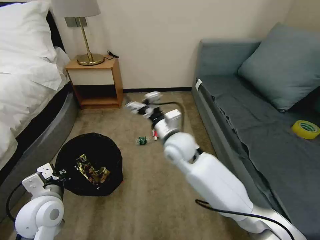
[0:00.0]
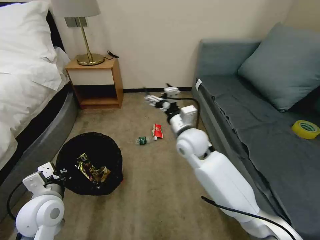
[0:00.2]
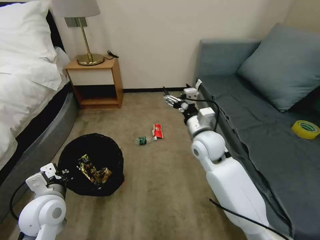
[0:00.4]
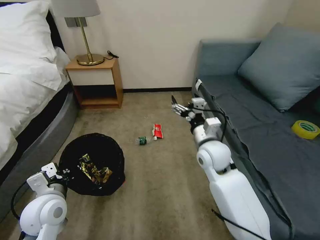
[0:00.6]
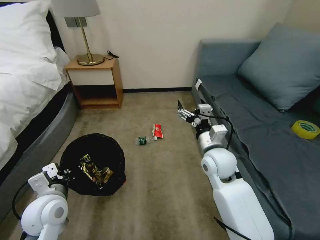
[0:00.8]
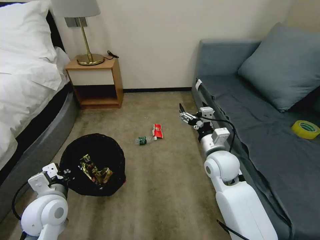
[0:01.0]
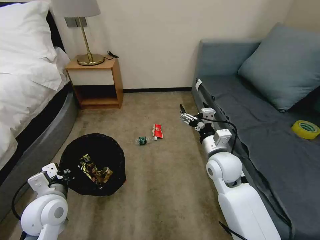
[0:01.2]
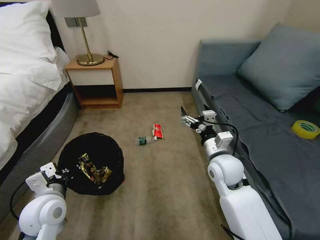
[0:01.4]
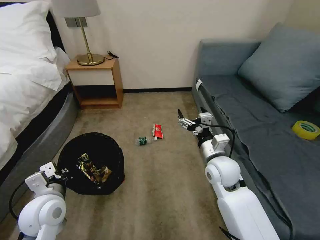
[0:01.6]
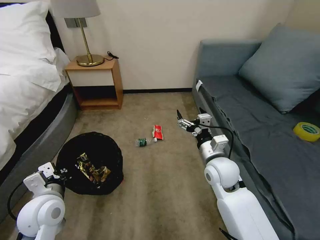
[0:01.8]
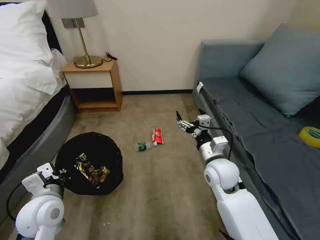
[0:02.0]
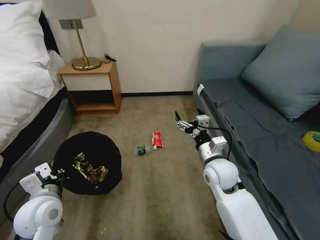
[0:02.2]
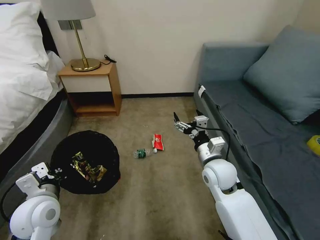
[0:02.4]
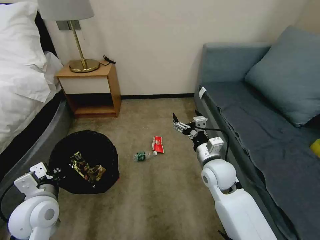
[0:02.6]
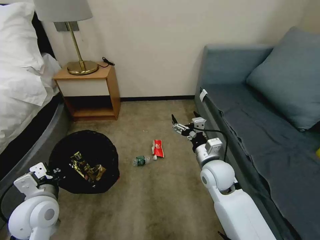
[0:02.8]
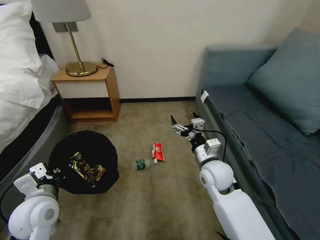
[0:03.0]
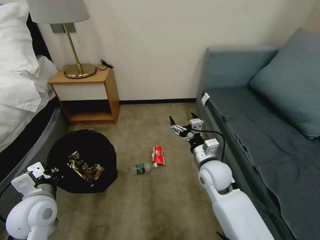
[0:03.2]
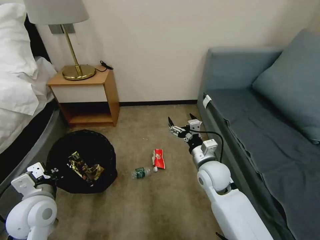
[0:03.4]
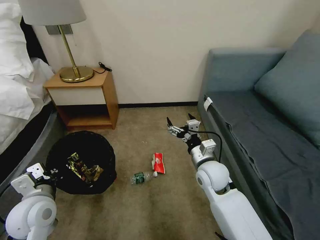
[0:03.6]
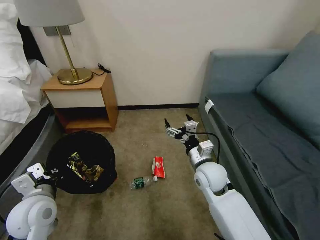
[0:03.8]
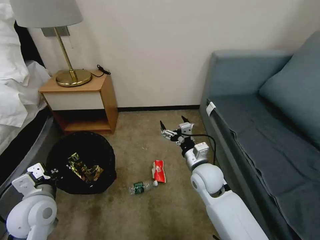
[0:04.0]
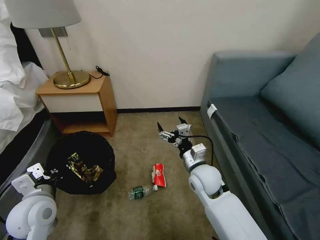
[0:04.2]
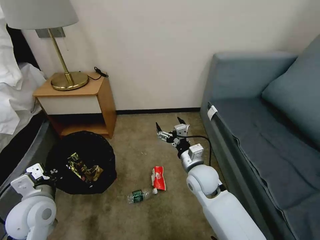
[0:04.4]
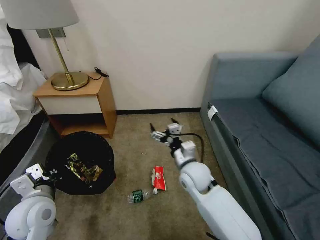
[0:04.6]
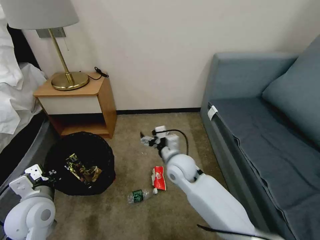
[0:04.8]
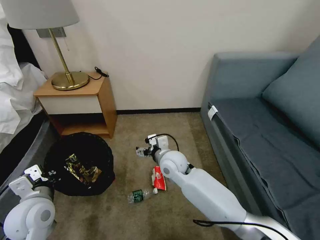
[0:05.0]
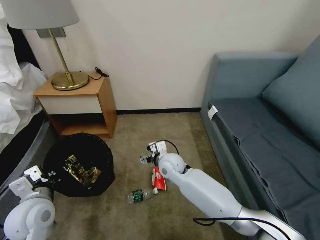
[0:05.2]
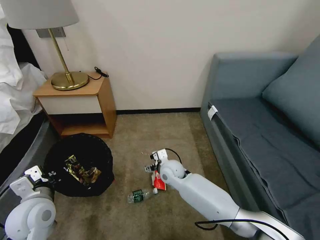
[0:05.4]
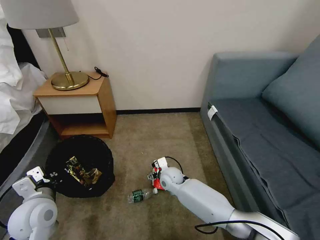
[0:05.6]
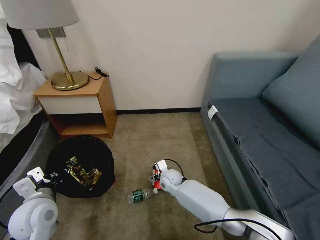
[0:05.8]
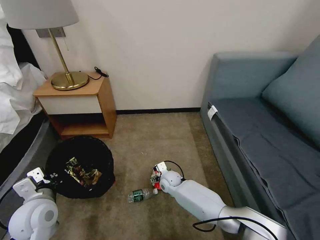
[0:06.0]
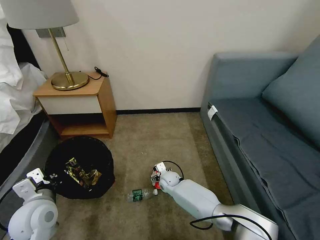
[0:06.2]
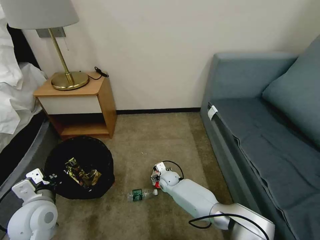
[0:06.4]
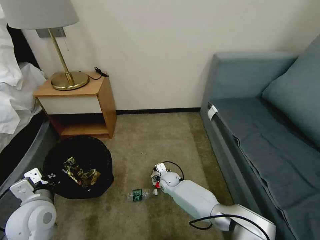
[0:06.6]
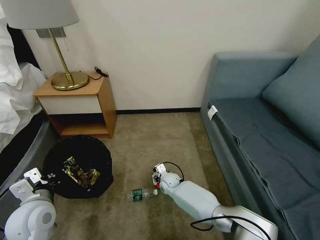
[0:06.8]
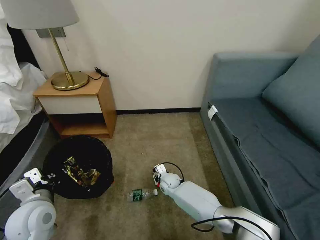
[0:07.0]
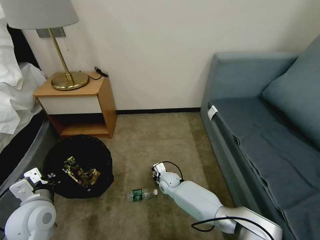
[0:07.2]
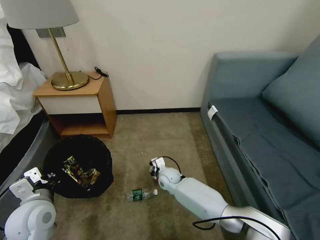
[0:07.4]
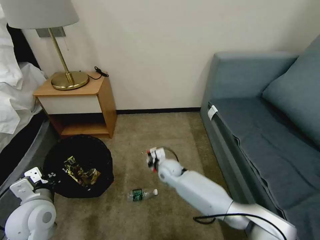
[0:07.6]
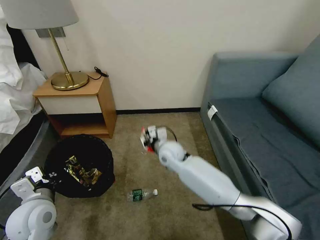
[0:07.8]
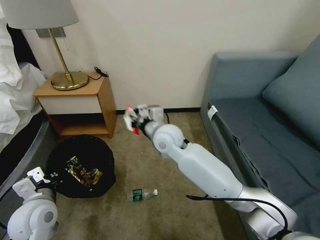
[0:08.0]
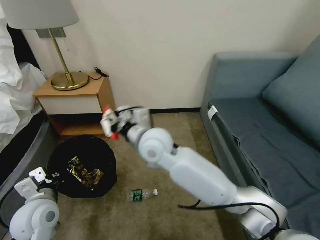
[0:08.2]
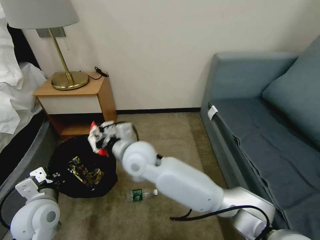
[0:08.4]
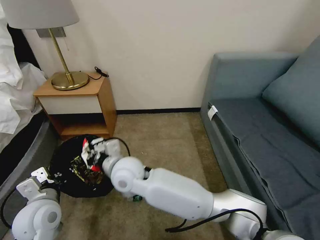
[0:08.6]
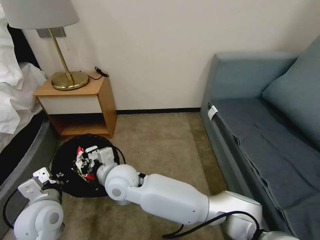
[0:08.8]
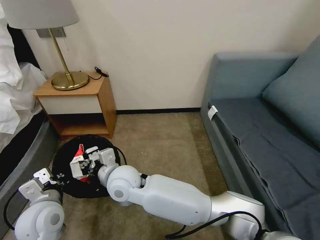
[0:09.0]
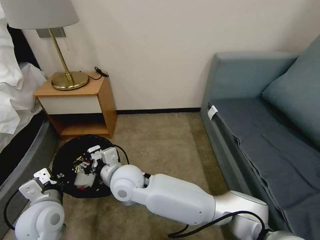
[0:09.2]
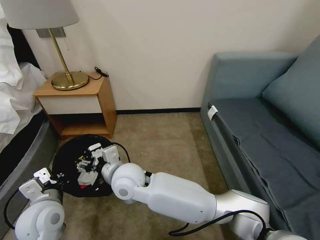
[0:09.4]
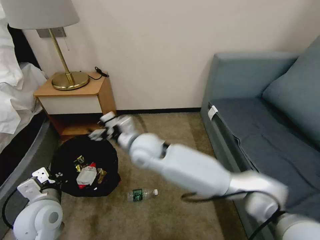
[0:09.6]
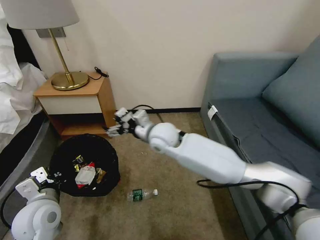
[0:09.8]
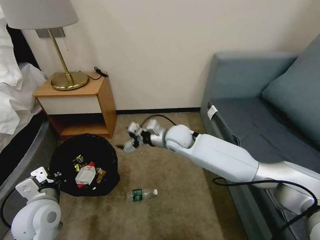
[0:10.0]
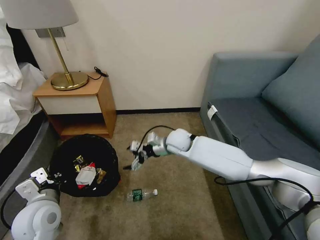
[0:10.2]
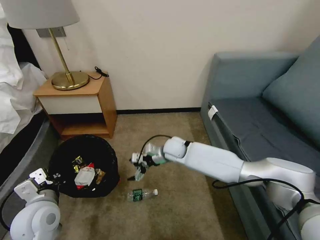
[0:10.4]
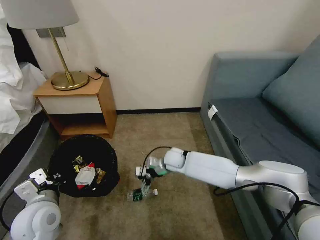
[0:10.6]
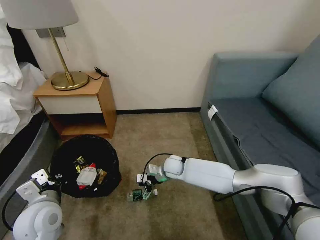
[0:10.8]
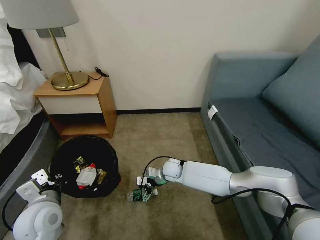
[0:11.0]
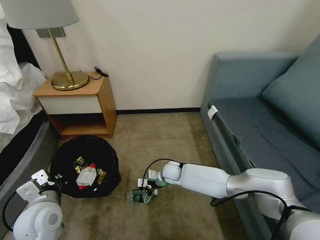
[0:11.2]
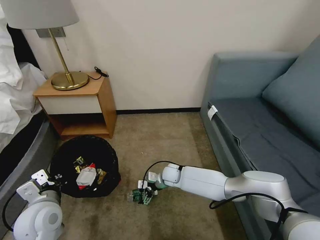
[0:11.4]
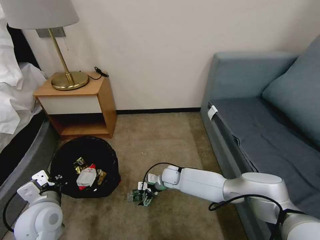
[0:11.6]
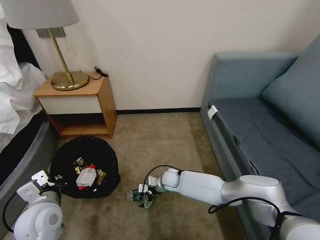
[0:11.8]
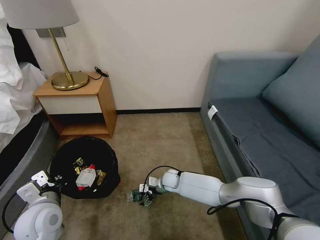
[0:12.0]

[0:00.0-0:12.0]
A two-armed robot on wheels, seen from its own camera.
Task of the whole recording: Pick up the trash bin, then pick up the garbage on the floor and place it into the trash bin.
0.0 to 1.6 s: The right gripper heads to the right, downward and backward, covering some 15 cm.
4.4 to 6.0 s: The right gripper heads downward, to the left and forward, covering about 20 cm.
6.0 to 7.6 s: The right gripper shifts some 10 cm upward, and closes up.
7.6 to 9.0 s: The right gripper goes some 25 cm upward, to the left and backward.
9.0 to 10.4 s: The right gripper travels forward, to the right and downward by approximately 25 cm, and opens.
10.4 to 12.0 s: The right gripper is displaced downward by approximately 15 cm.

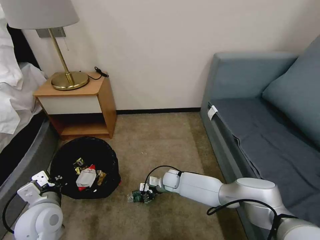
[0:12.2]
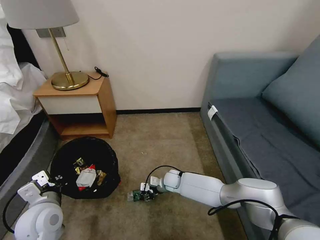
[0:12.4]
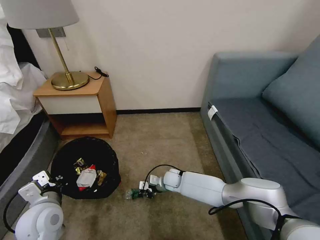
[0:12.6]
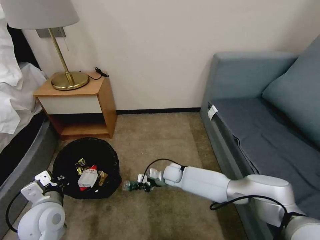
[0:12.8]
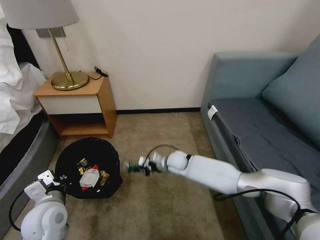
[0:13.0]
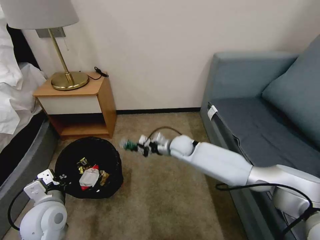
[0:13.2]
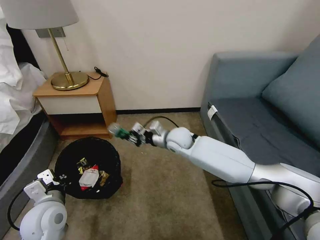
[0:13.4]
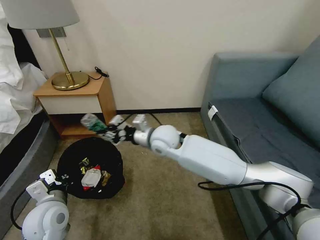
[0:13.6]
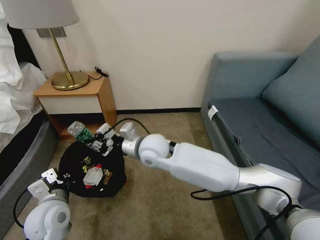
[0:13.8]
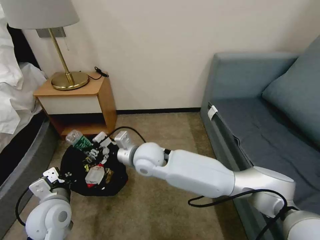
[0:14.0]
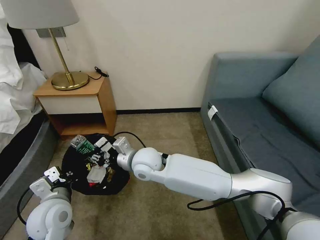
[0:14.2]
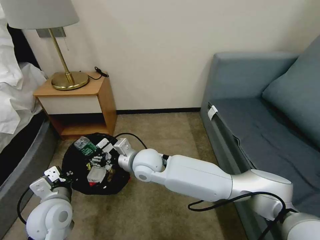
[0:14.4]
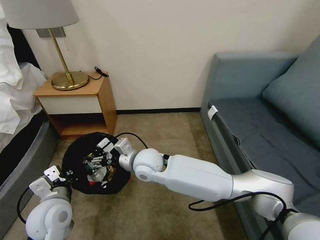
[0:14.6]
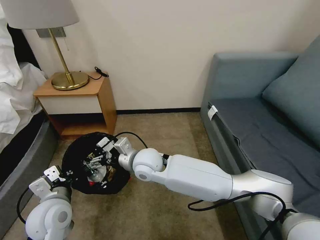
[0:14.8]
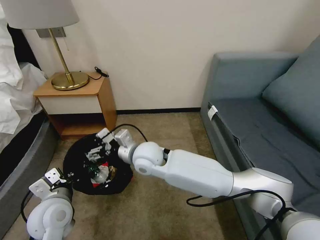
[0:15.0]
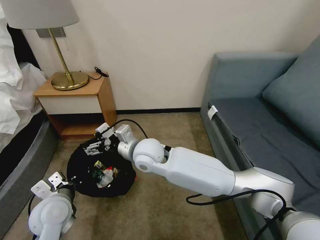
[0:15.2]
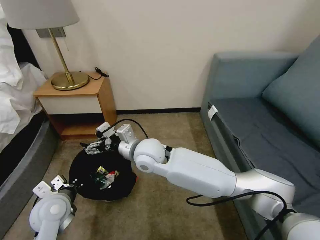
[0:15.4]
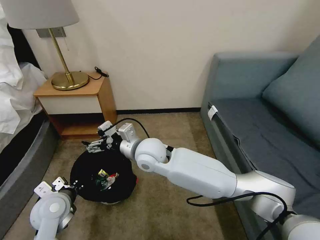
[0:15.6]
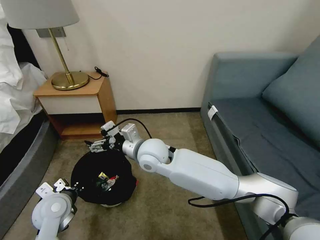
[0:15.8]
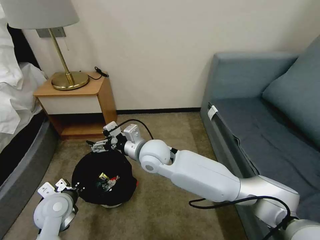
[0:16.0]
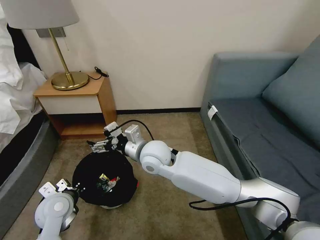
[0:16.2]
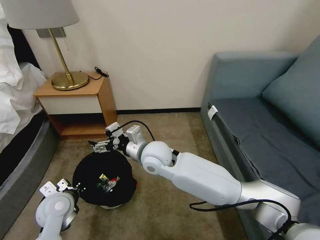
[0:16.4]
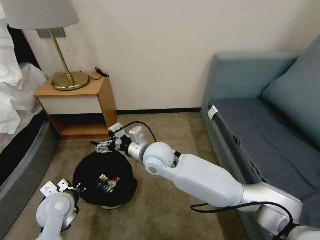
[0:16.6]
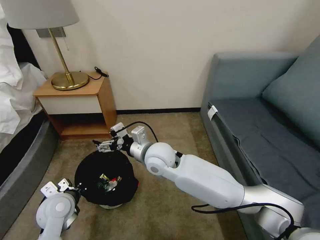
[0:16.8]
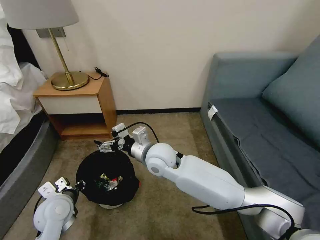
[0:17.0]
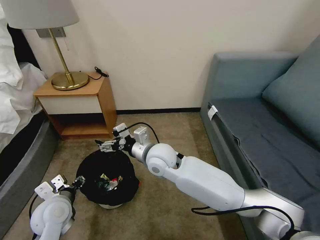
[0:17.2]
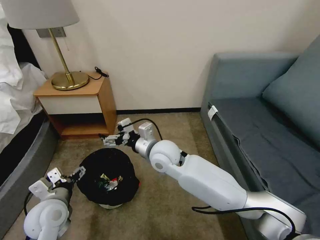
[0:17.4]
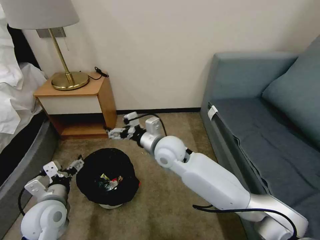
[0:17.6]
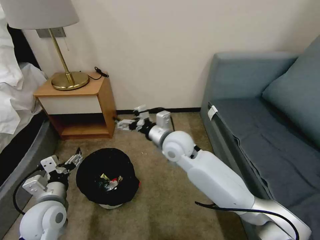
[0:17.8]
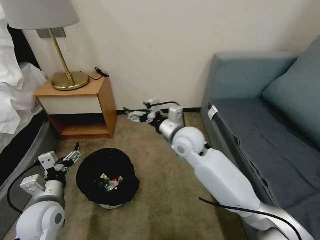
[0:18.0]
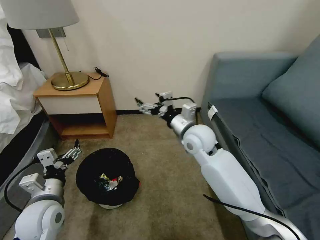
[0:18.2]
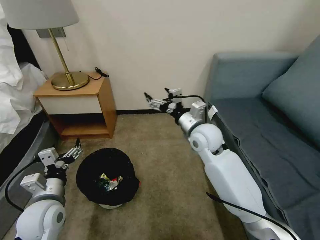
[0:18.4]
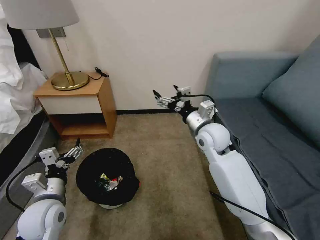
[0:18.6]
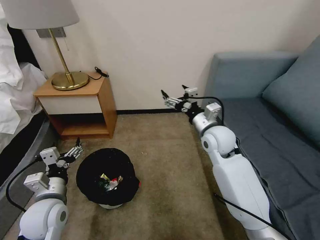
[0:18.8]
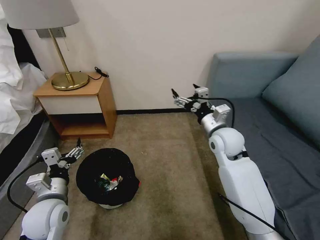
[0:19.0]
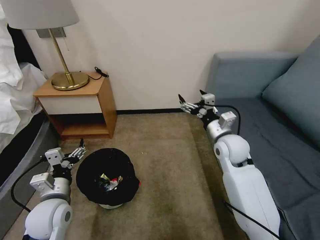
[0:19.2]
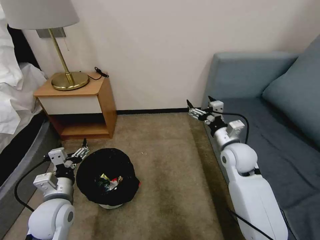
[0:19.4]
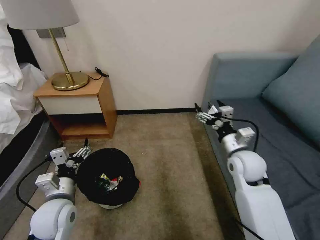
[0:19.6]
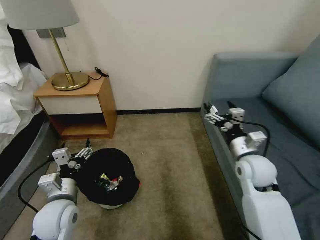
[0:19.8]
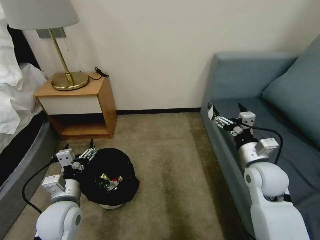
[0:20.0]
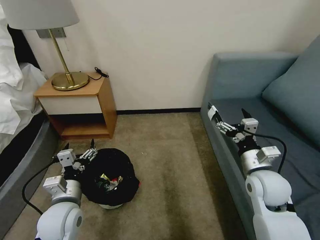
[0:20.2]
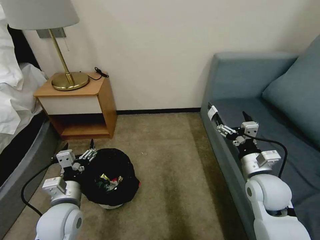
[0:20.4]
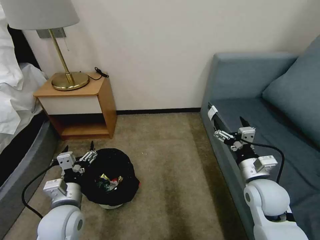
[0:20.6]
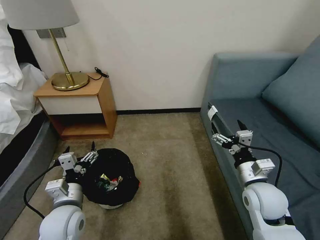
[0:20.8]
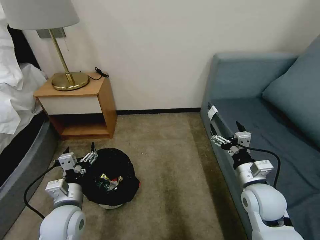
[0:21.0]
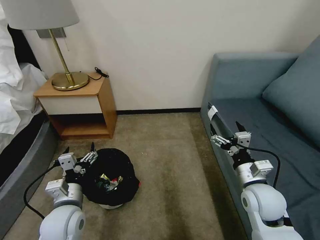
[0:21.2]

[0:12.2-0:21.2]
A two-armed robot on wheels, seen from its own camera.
Task of the whole recording: Pick up the trash bin, then pick up the garbage on the floor and place it into the trash bin.
12.2 to 13.8 s: The right gripper shifts roughly 30 cm upward, and closes its fingers.
13.8 to 15.2 s: The right gripper opens.
15.2 to 16.6 s: The grippers make only small movements.
16.6 to 18.2 s: The right gripper is displaced to the right by approximately 15 cm. Meanwhile the left gripper ends up roughly 5 cm from where it was, and opens its fingers.
18.2 to 19.8 s: The right gripper moves to the right and backward, approximately 20 cm.
19.8 to 21.2 s: The right gripper moves backward, approximately 5 cm.

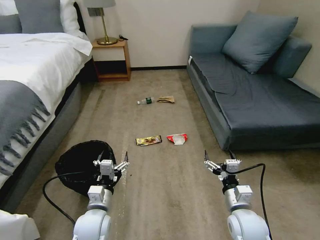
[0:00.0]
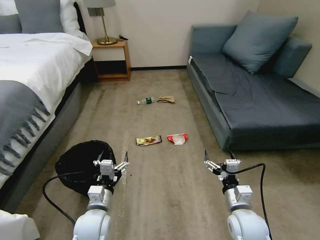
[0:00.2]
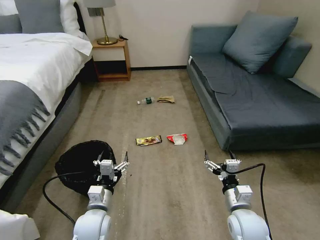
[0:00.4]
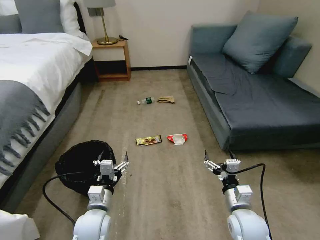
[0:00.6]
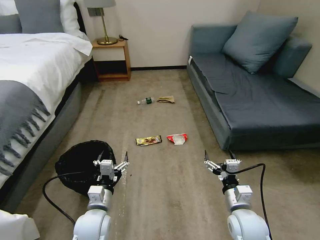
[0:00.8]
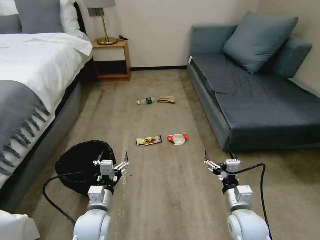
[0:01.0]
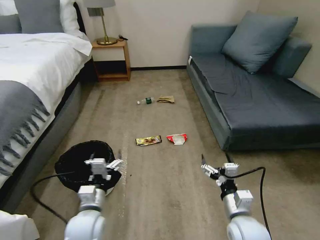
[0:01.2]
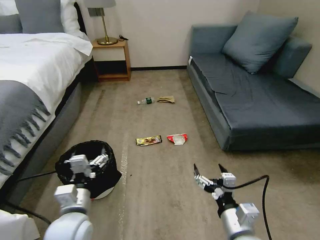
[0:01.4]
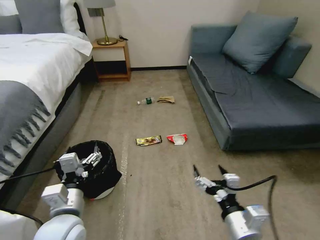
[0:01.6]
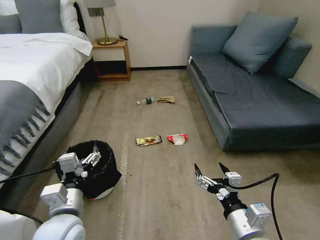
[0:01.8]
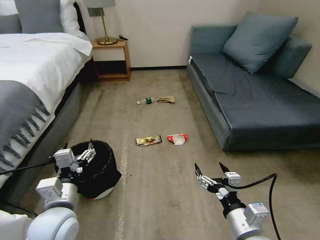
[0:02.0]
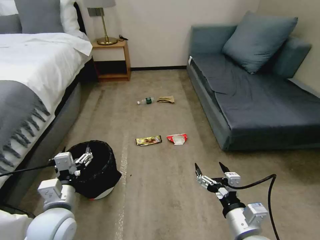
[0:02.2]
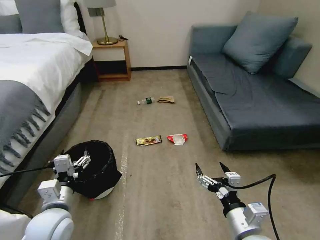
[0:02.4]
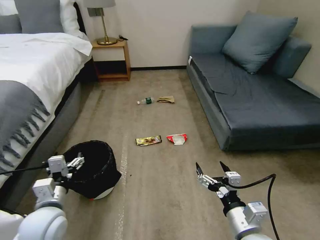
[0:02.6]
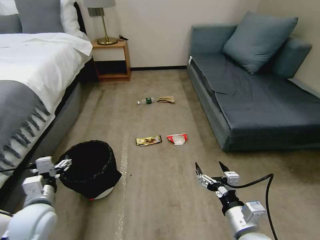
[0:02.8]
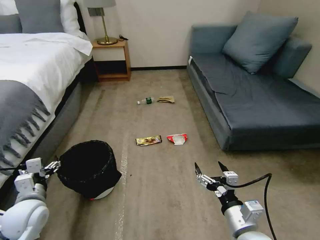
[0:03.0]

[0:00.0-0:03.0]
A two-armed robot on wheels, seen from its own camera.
Task of the whole recording: Pick up the trash bin, then pick up the garbage on the floor and place it into the trash bin.
1.6 to 3.0 s: The left gripper travels to the left by about 15 cm.
